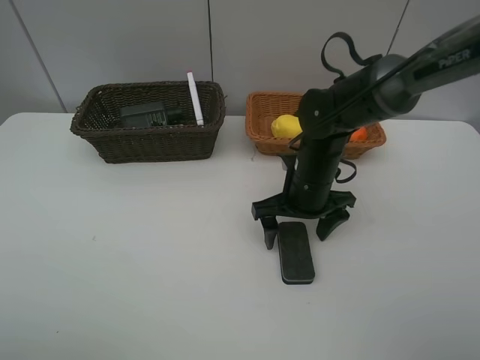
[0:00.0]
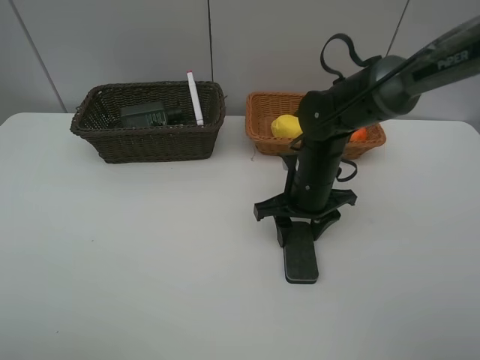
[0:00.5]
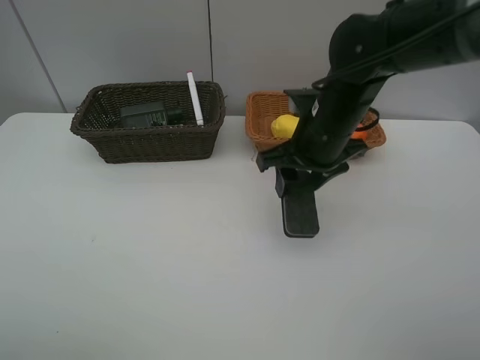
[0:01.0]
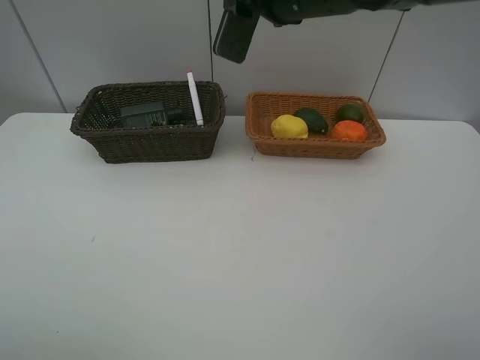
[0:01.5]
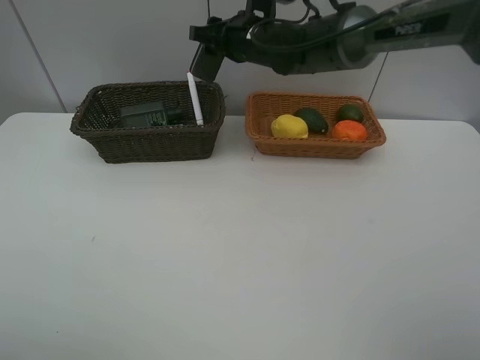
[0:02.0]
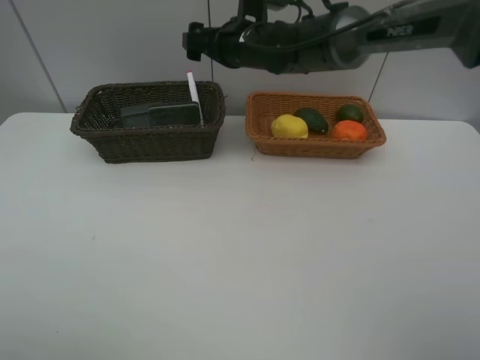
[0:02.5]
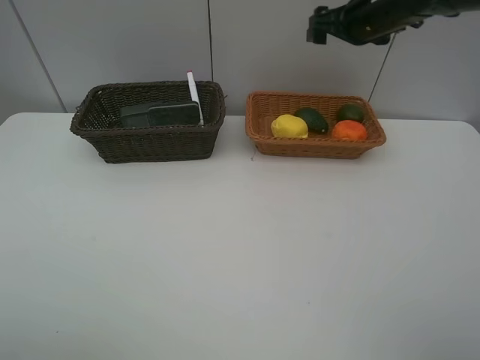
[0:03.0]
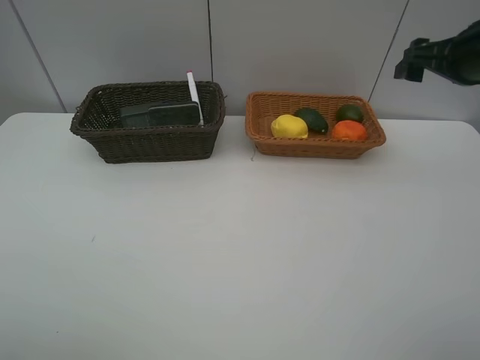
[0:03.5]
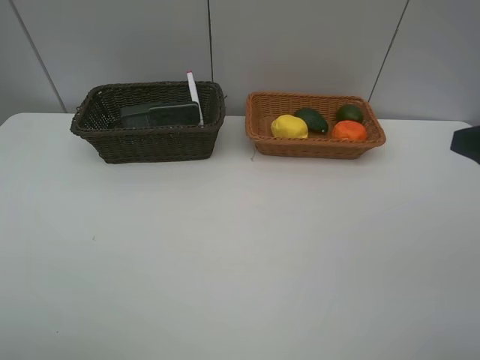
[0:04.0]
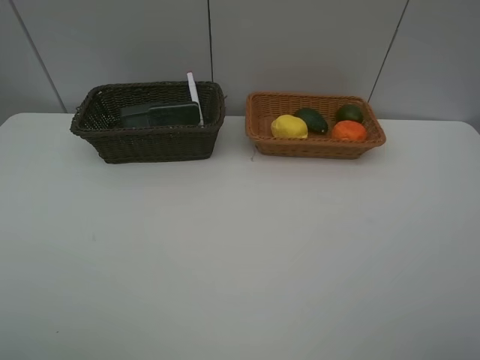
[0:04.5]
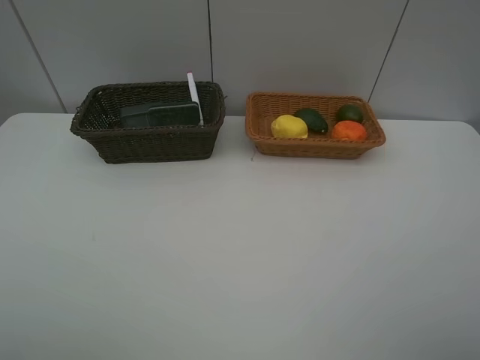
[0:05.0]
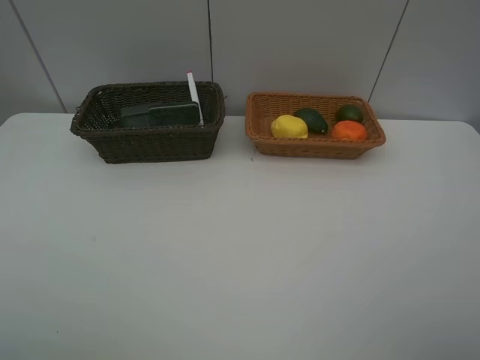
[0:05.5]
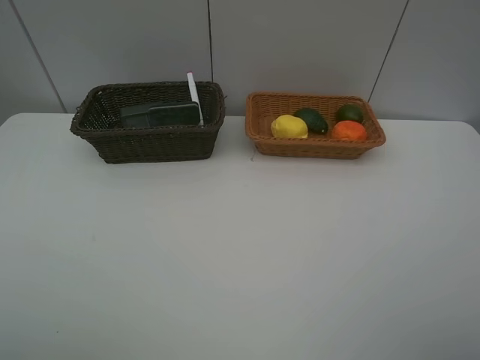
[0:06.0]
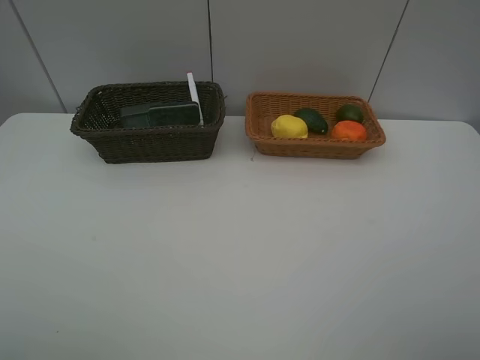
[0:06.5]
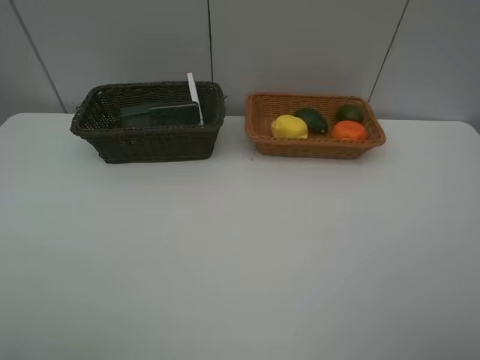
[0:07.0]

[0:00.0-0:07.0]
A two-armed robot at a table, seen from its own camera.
Task of the whole recording: Place multiple objects separately in different baskets.
Step, 0:01.0 to 0:02.0: Place the blackboard eraser in the dark basket with right gripper.
0:00.0 to 0:02.0: The right gripper travels forward, upward and to the left by roughly 20 cm, and closes its fingers.
0:02.0 to 0:03.5: The right gripper is displaced to the right and backward by approximately 30 cm, and opens up.
0:03.5 to 0:05.0: The right gripper heads backward, covering some 30 cm.
0:05.0 to 0:07.0: The two grippers keep their place.
